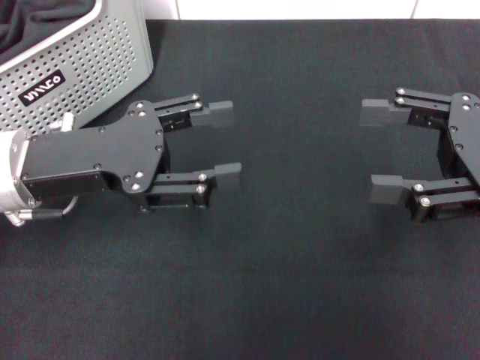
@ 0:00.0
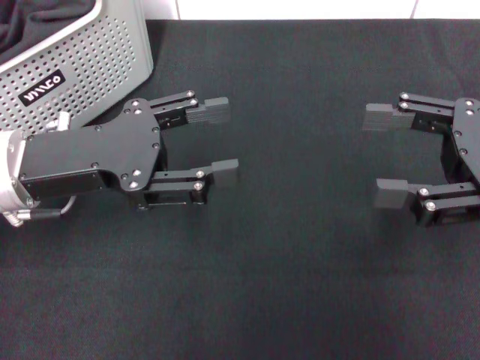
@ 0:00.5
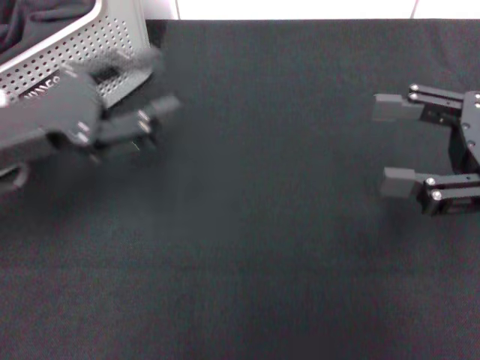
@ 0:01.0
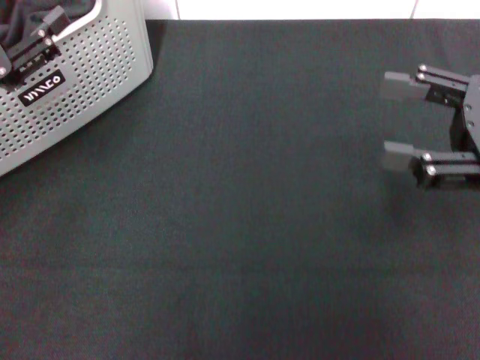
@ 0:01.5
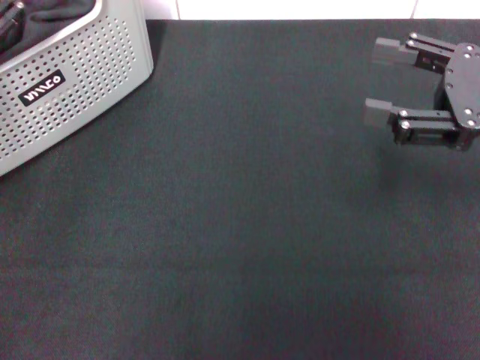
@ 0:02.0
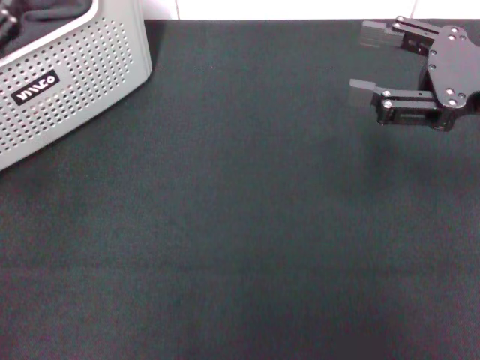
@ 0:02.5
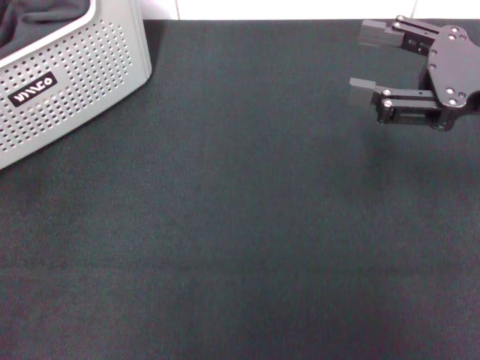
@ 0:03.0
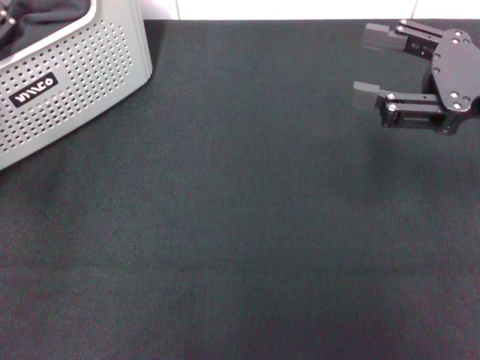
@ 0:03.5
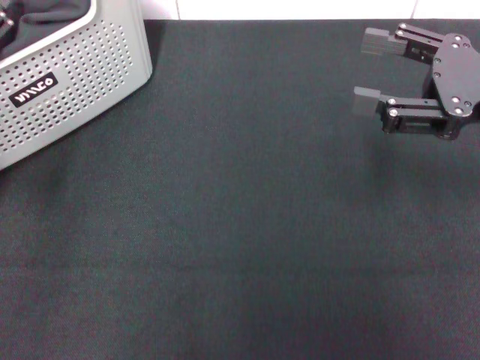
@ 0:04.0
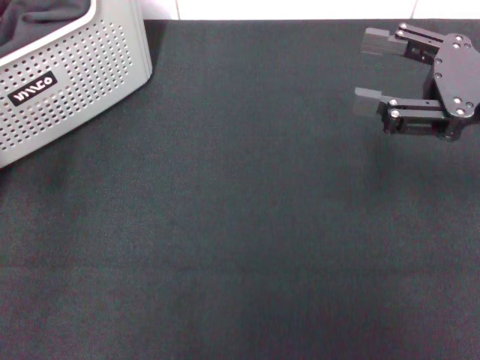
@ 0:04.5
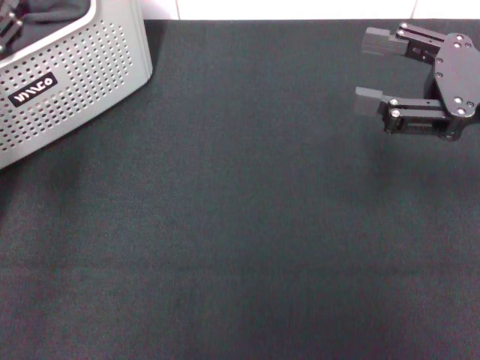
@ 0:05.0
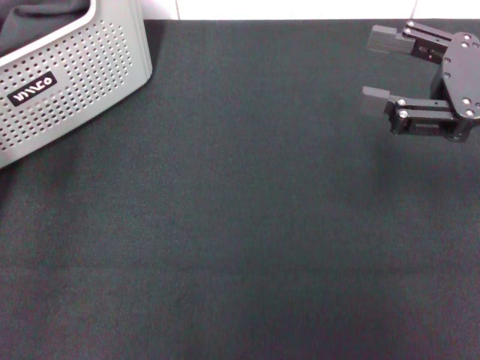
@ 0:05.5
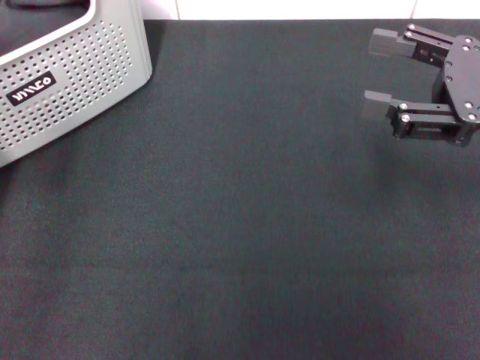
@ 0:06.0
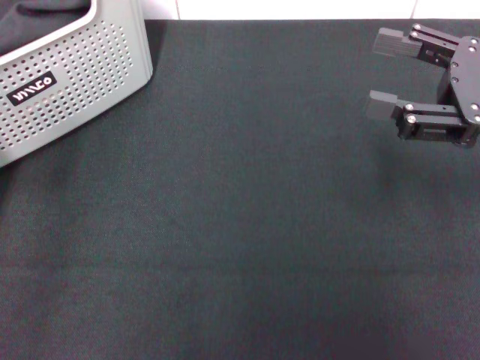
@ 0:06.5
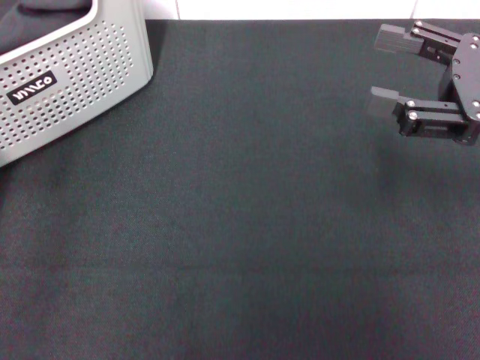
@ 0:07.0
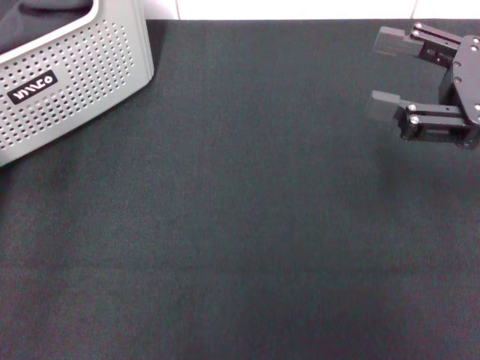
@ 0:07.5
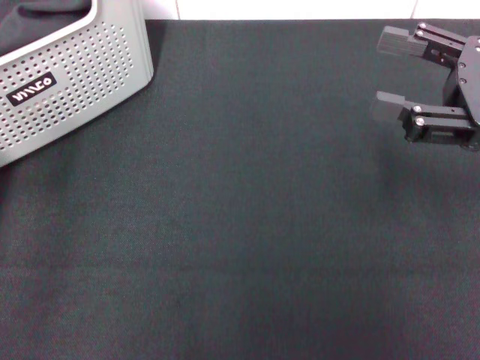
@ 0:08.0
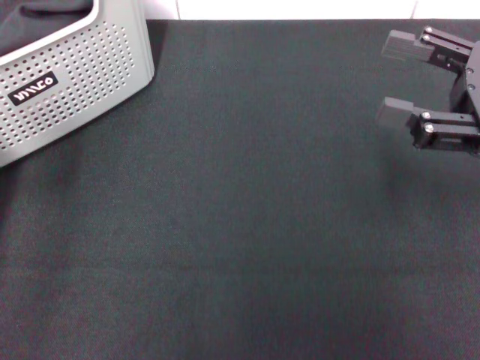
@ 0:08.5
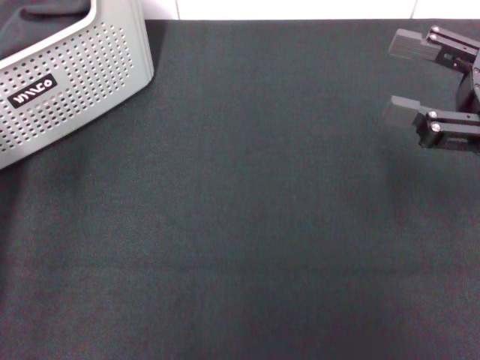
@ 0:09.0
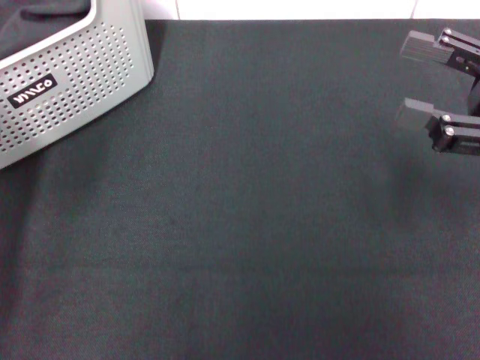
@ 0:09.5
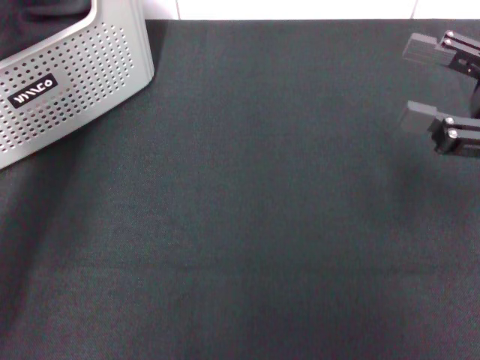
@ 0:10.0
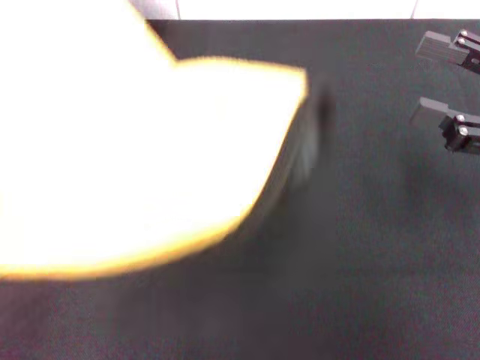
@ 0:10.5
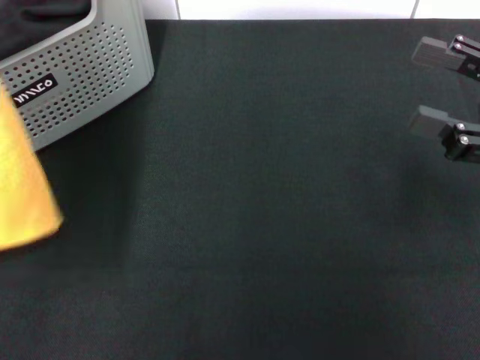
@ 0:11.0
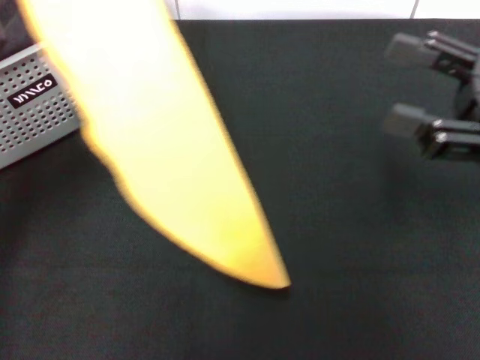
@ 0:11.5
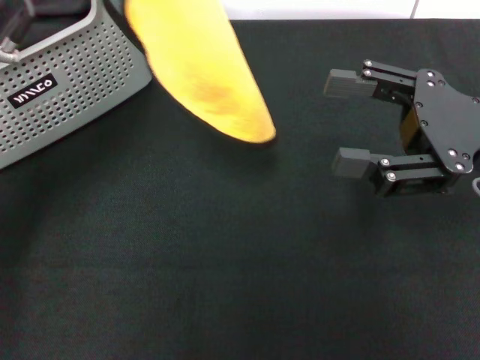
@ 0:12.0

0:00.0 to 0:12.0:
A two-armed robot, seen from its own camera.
Task of the whole recording: pick up the towel from the storage box and lay it flat on the black tablecloth.
Step, 0:00.0 to 0:09.5: Pick up a towel with the left gripper.
0:00.0 to 0:02.0: The left gripper shifts about 10 cm to the left.
0:04.0 to 0:06.0: There are only small adjustments of the grippers.
0:06.0 to 0:08.0: The grippers make only small movements.
0:08.0 to 0:10.0: The left gripper shifts about 10 cm to the right and upward, and closes up.
0:10.0 to 0:12.0: The left gripper moves about 5 cm.

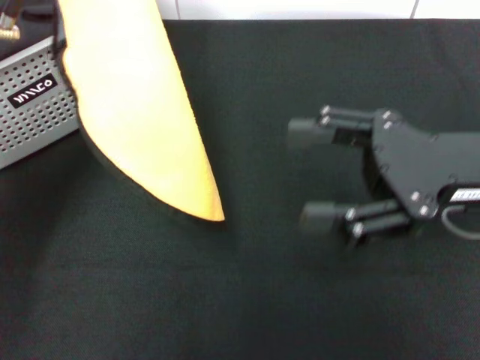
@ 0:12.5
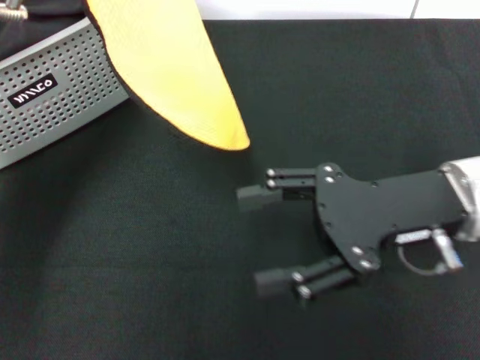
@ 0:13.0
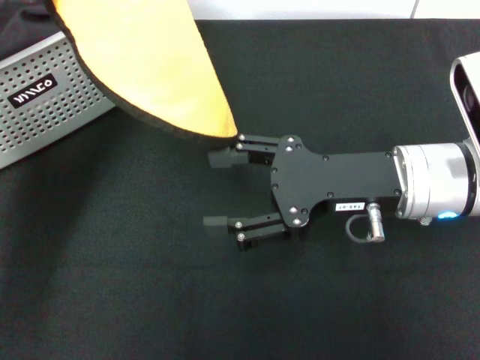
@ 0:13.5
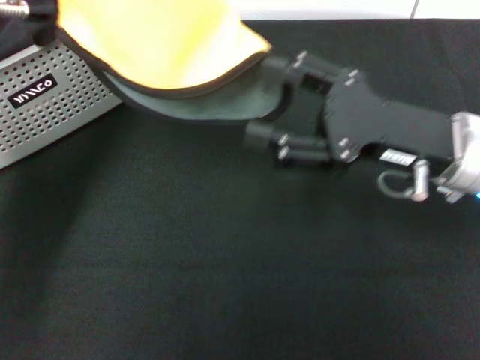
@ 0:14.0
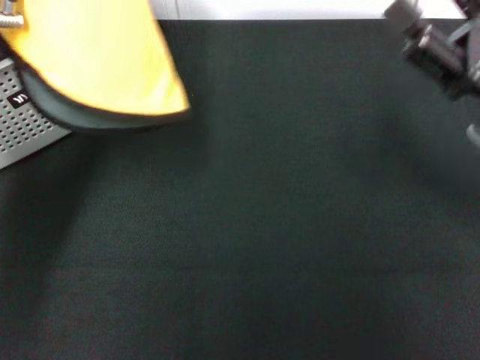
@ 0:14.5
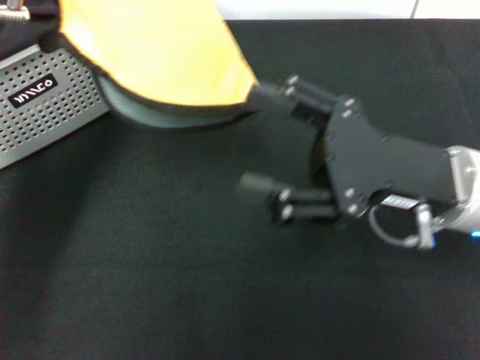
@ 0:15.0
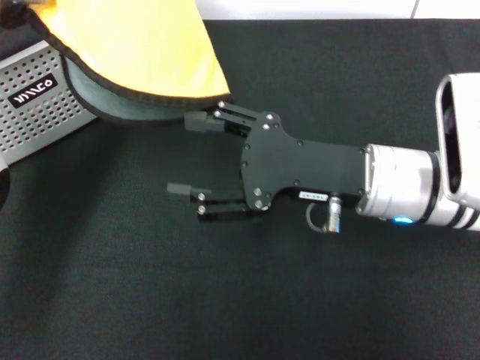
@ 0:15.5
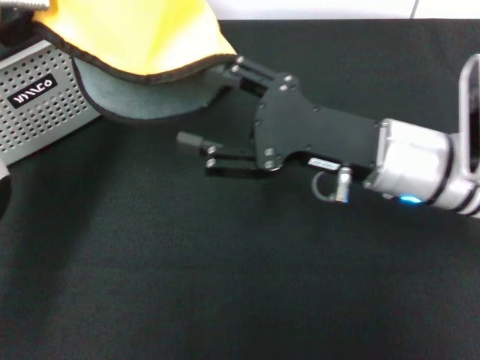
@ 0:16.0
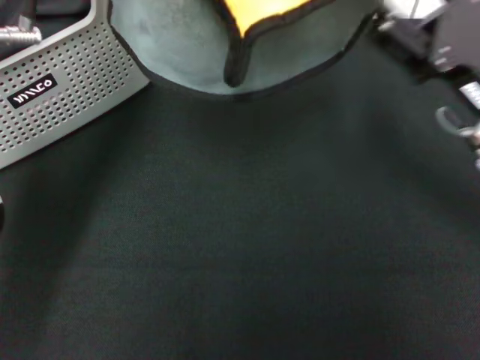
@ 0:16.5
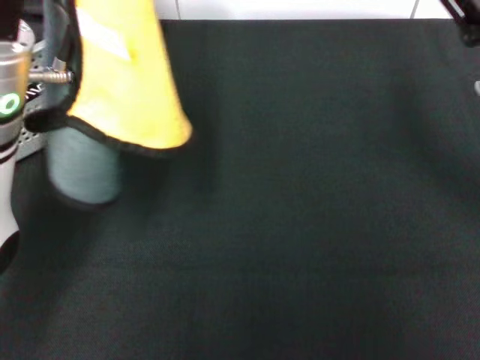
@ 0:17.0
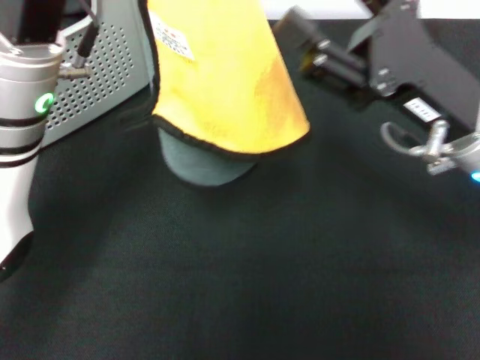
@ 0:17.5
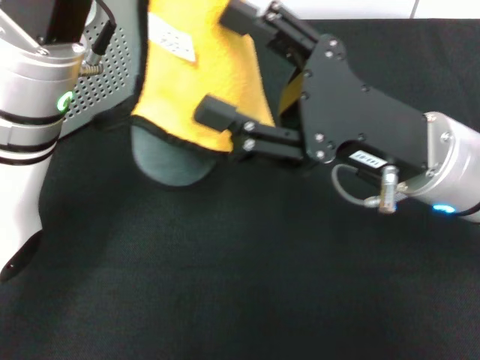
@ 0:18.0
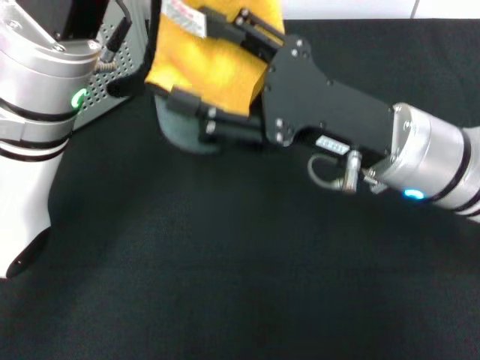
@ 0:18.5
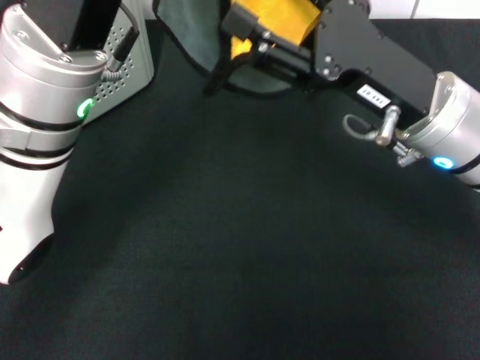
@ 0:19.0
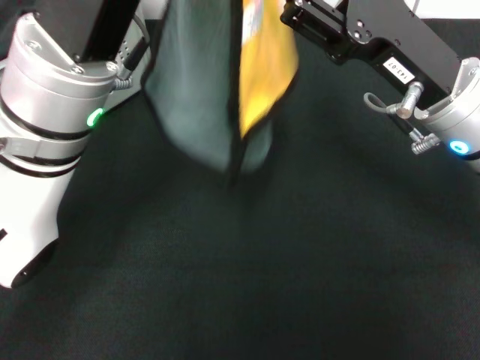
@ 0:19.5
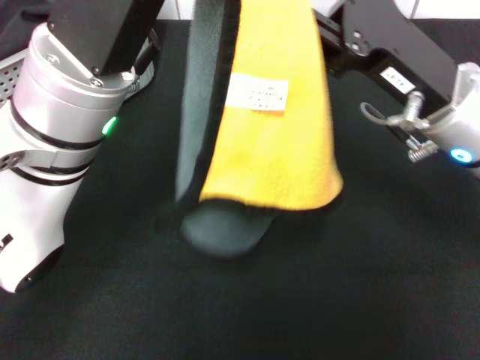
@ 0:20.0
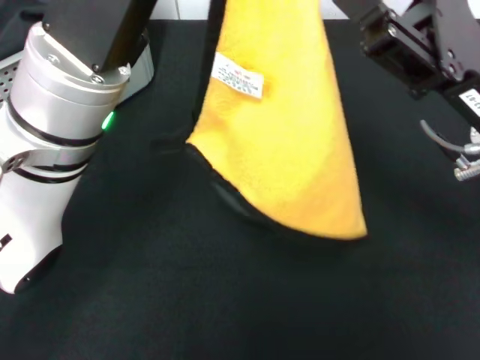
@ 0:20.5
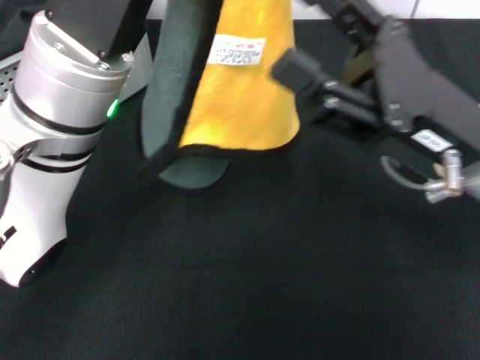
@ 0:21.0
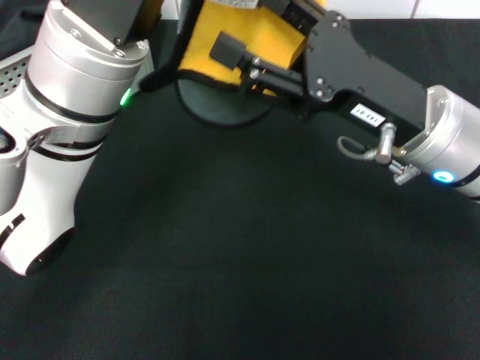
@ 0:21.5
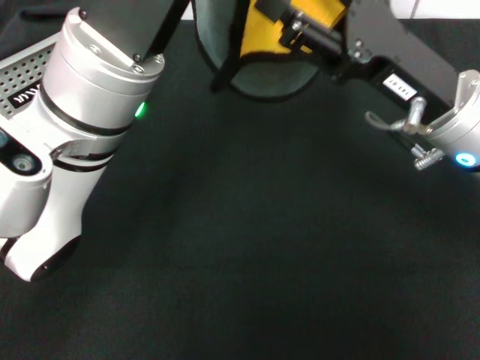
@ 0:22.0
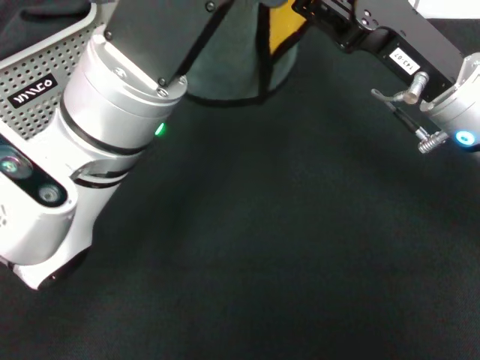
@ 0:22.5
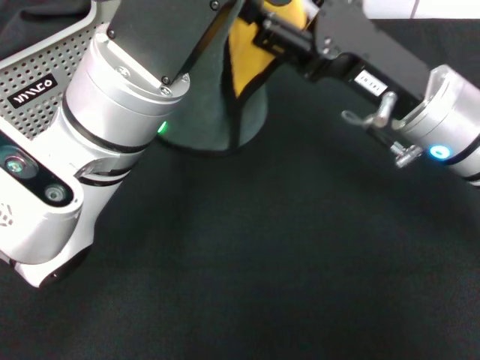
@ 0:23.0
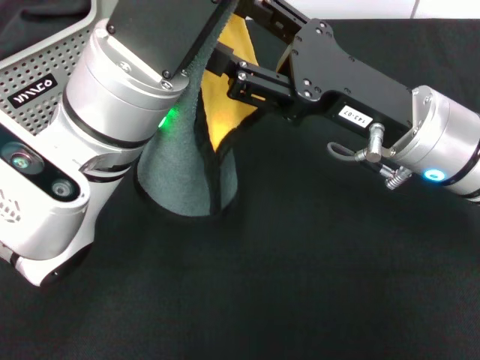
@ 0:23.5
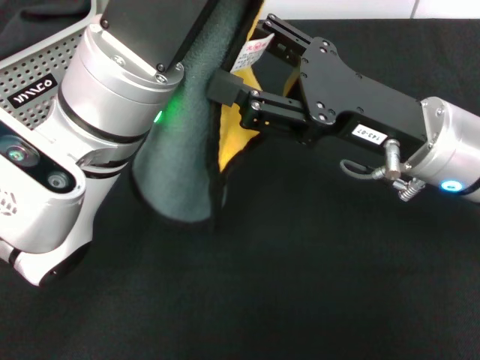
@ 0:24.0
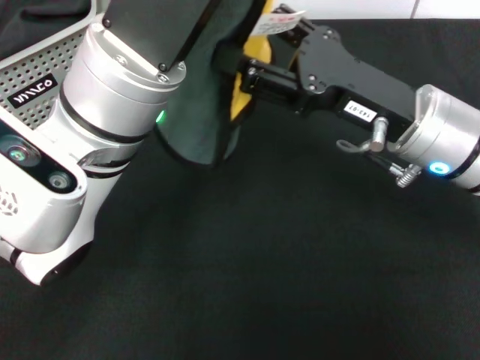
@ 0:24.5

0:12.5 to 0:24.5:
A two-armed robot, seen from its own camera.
Task of the whole recording: pick up the towel from the storage box and lay it flat on the black tablecloth.
0:12.5 to 0:14.5: The right gripper moves some 5 cm to the left and comes back.
0:14.5 to 0:16.5: The right gripper moves roughly 10 cm to the left and comes back.
0:16.5 to 0:18.5: The left gripper goes roughly 5 cm to the right; the right gripper shifts some 10 cm to the left.
0:18.5 to 0:20.5: The right gripper travels to the right by about 5 cm.

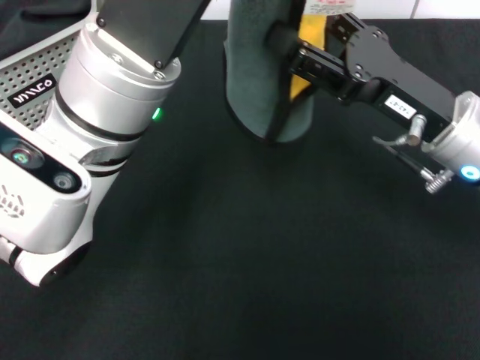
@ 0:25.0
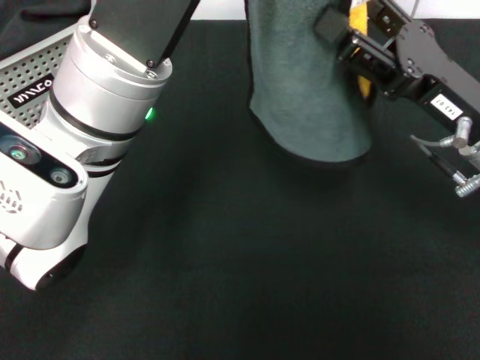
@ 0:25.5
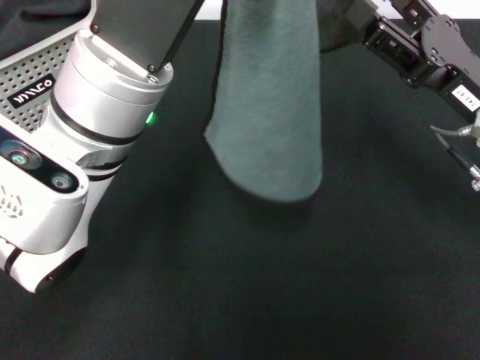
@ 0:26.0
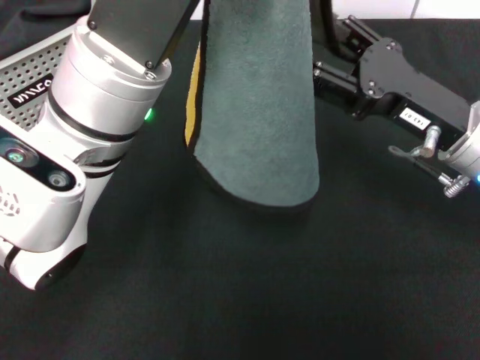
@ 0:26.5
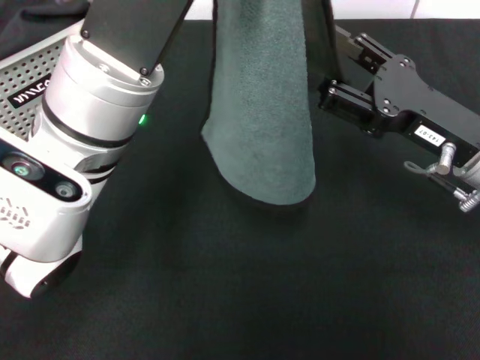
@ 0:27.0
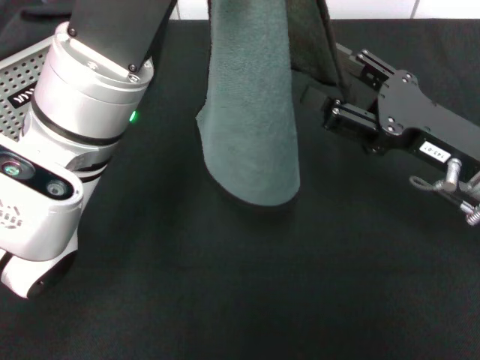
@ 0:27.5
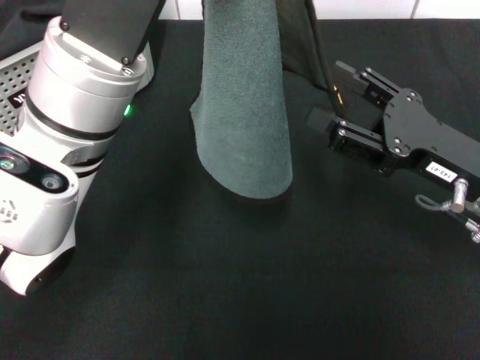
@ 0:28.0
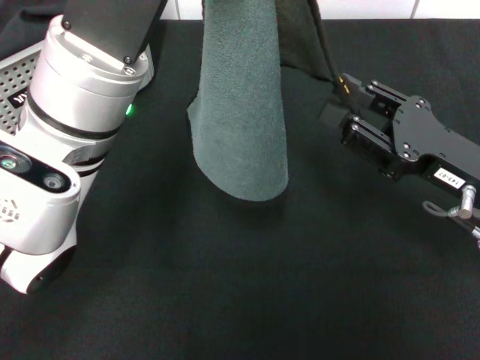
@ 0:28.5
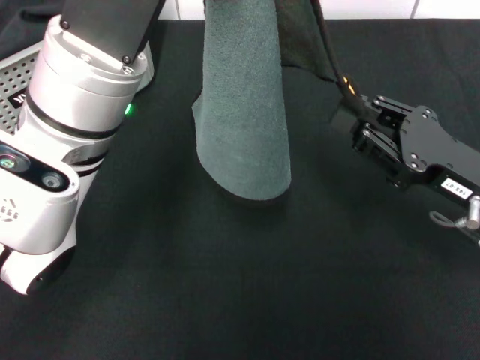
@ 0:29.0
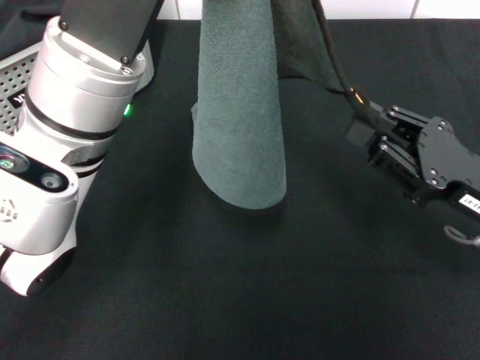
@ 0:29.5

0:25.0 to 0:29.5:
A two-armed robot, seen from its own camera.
Task of the whole recording: pick up the towel from the storage box and lay it flat on the black tablecloth.
0:27.0 to 0:29.5: The right gripper shifts by roughly 5 cm, and closes.
